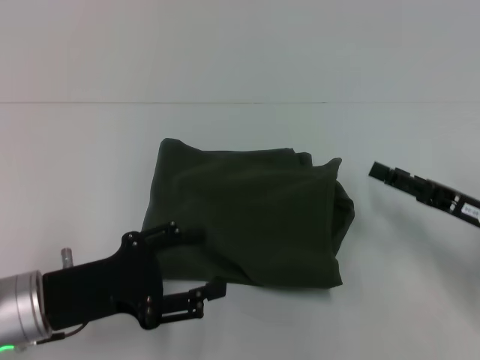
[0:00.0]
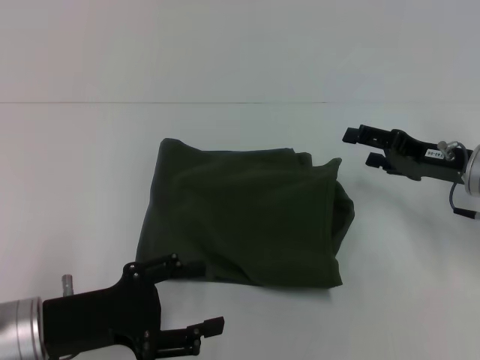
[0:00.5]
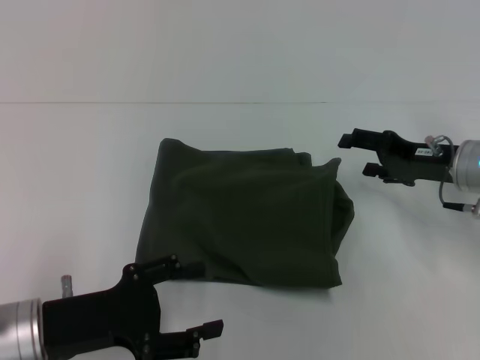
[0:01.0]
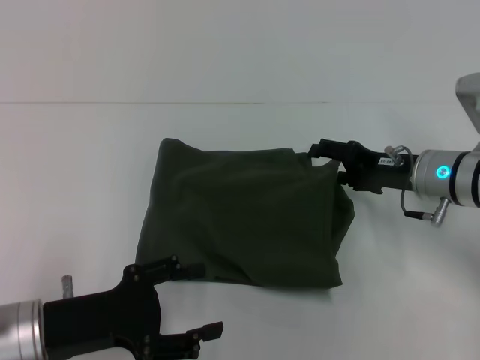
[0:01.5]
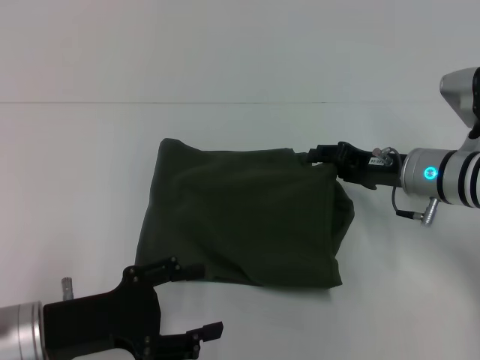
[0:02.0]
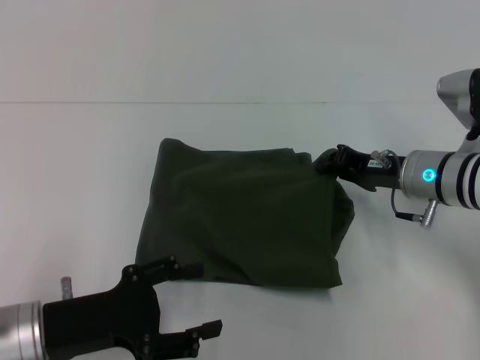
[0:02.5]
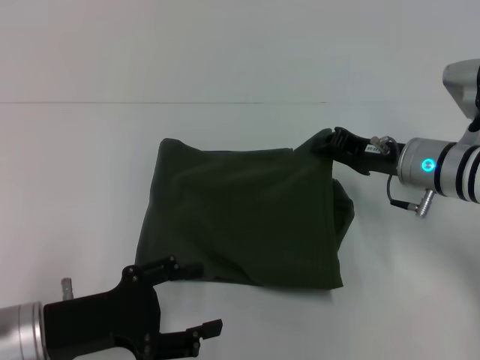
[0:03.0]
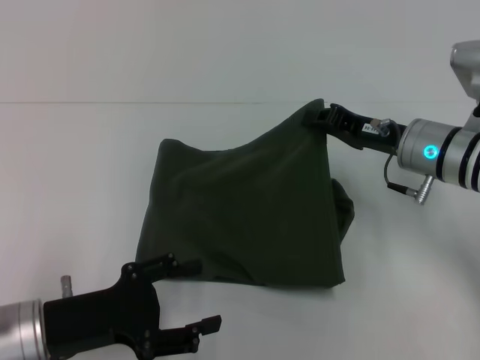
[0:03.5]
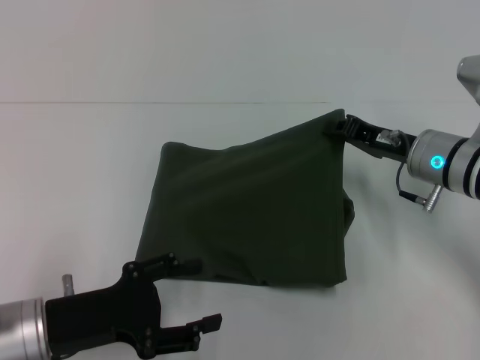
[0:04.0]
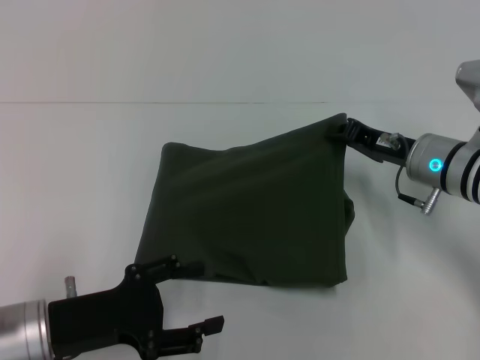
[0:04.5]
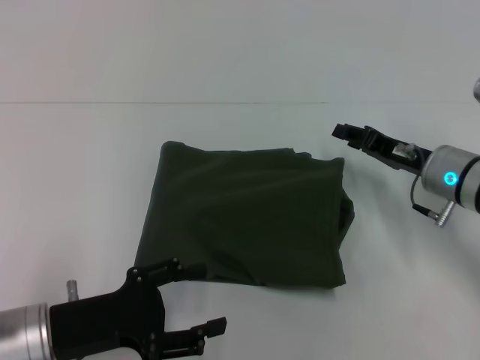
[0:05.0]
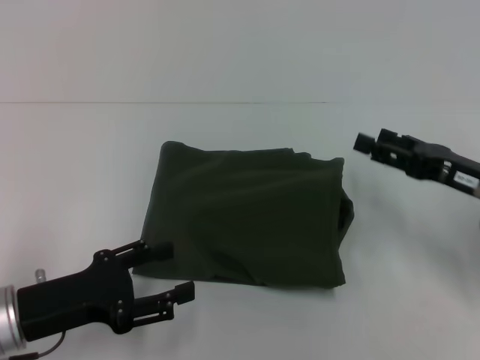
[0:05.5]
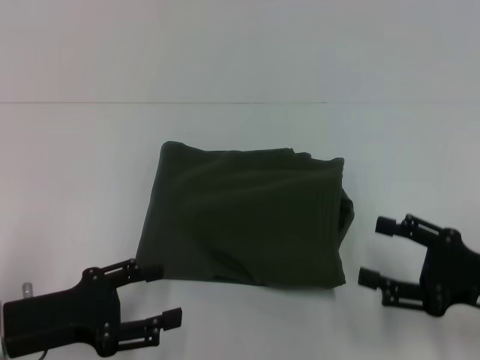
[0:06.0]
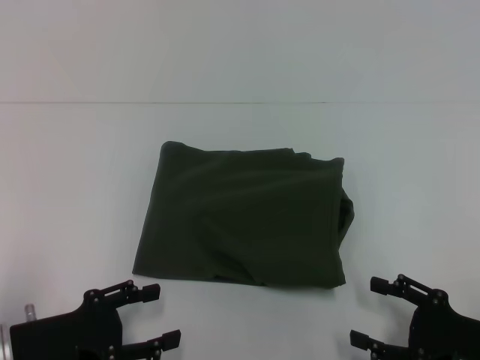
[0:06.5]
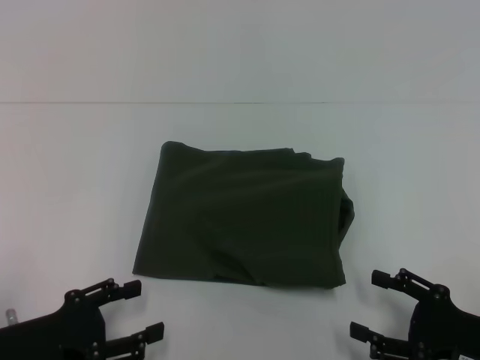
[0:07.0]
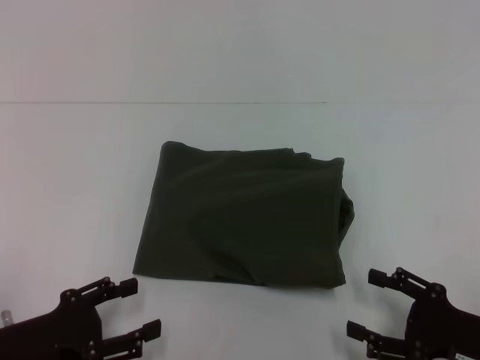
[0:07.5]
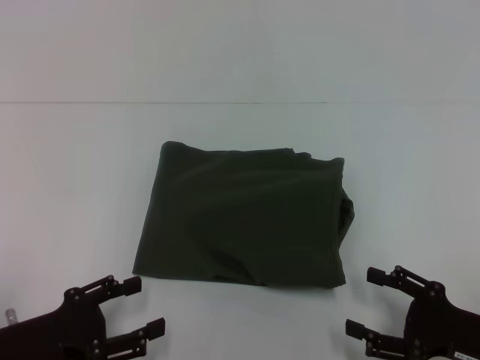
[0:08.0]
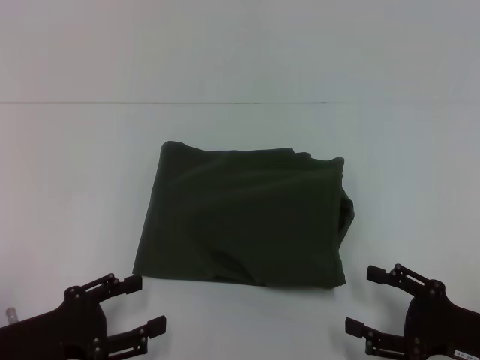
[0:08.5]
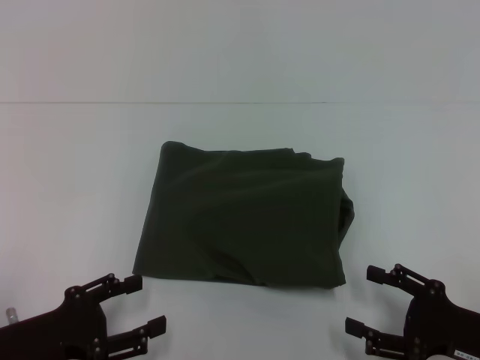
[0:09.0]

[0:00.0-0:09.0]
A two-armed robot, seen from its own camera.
0.0 to 2.0 s: The right gripper shifts some 10 cm forward and to the left.
2.0 to 4.5 s: The right gripper closes its fingers.
4.5 to 7.0 s: The right gripper is displaced backward by some 20 cm, and opens, while the left gripper changes place by roughly 5 cm.
7.0 to 9.0 s: Both grippers stay about where they are.

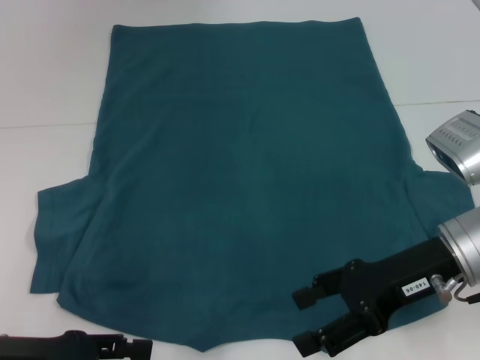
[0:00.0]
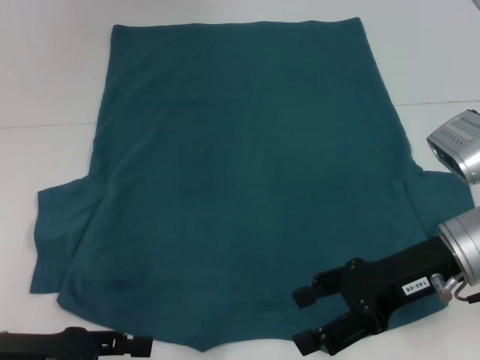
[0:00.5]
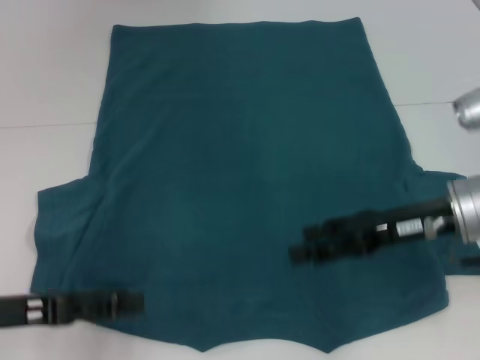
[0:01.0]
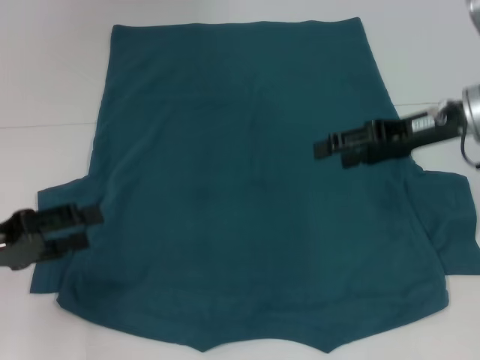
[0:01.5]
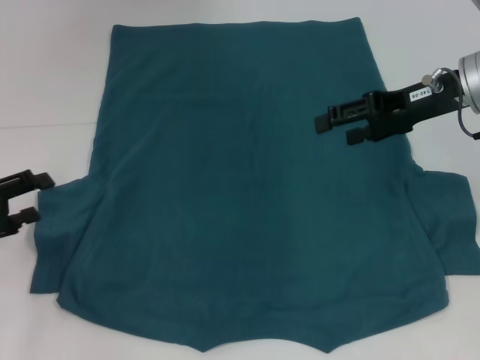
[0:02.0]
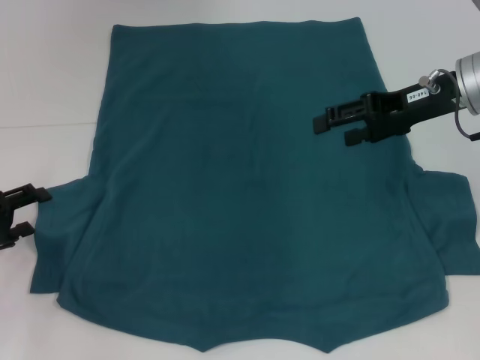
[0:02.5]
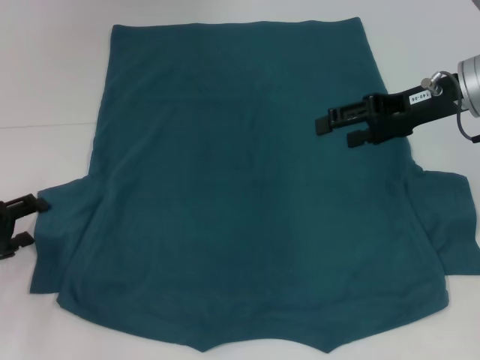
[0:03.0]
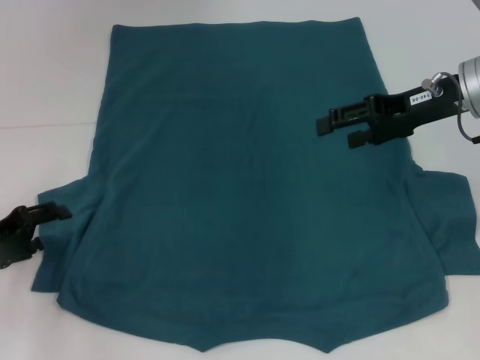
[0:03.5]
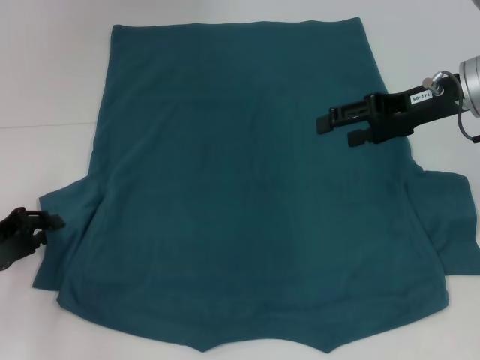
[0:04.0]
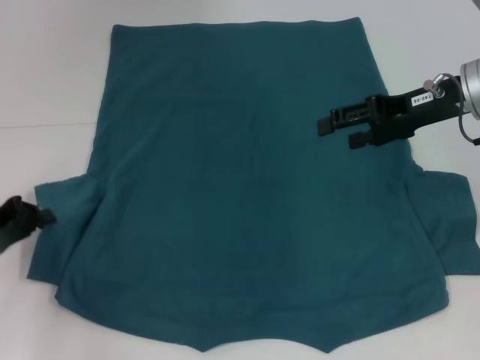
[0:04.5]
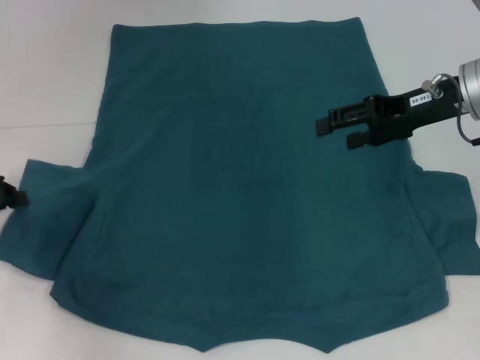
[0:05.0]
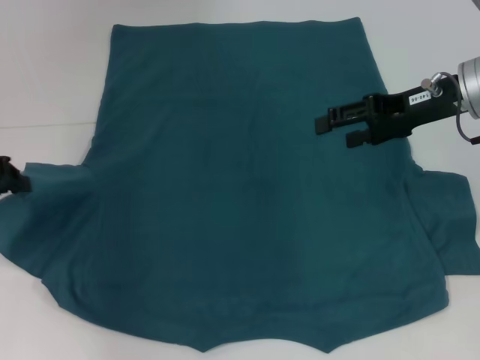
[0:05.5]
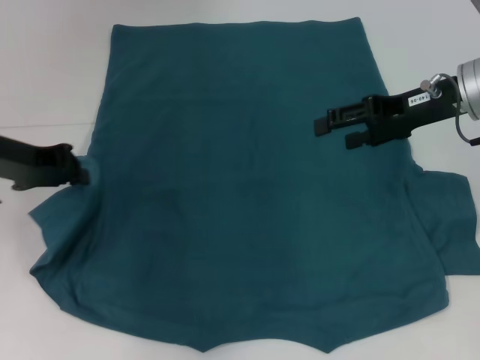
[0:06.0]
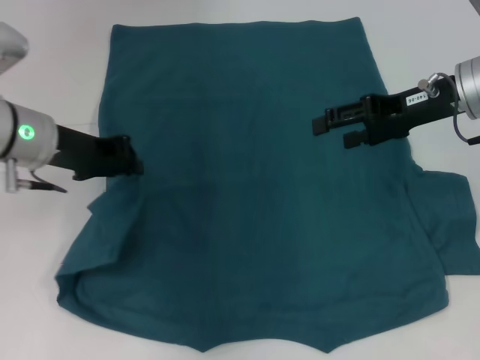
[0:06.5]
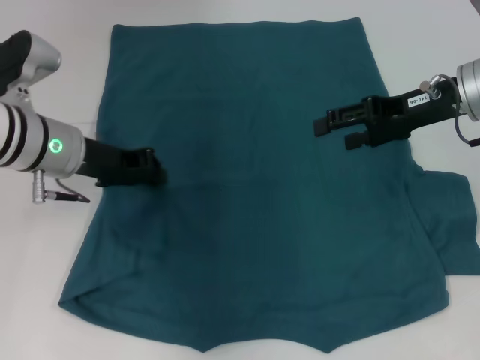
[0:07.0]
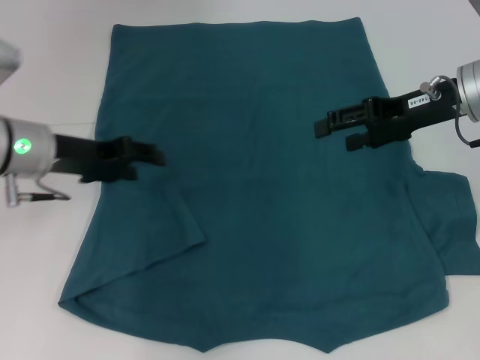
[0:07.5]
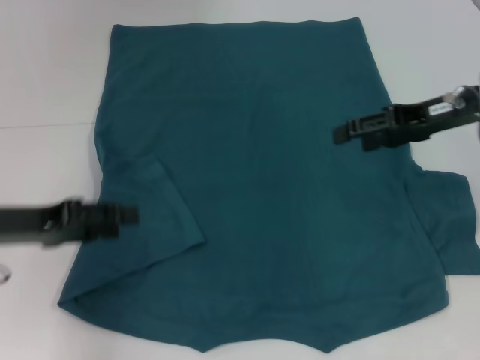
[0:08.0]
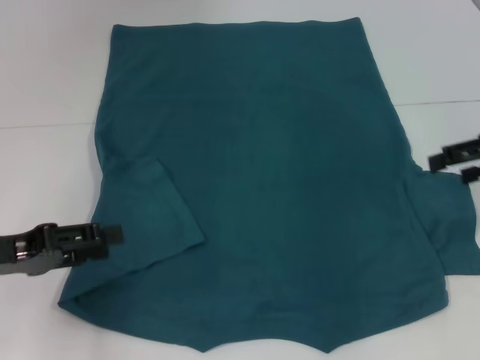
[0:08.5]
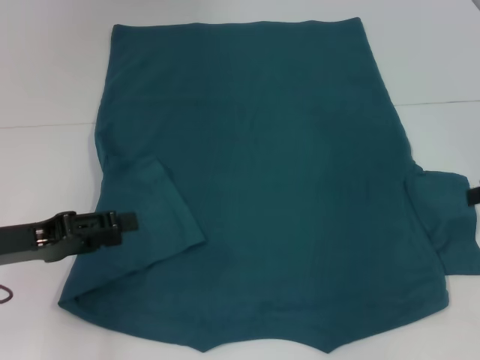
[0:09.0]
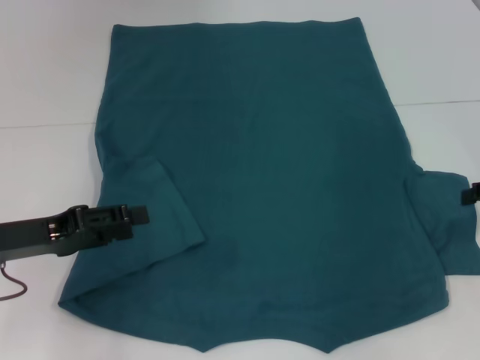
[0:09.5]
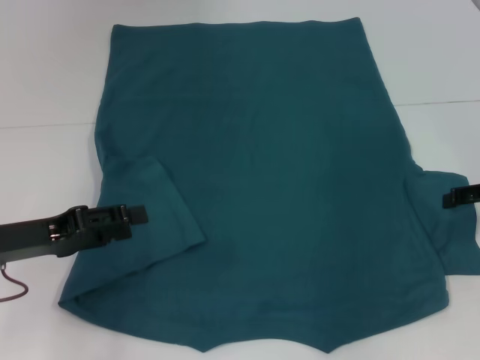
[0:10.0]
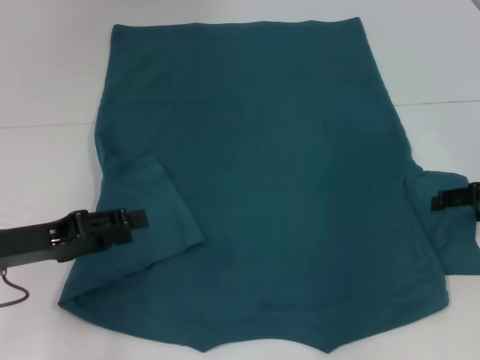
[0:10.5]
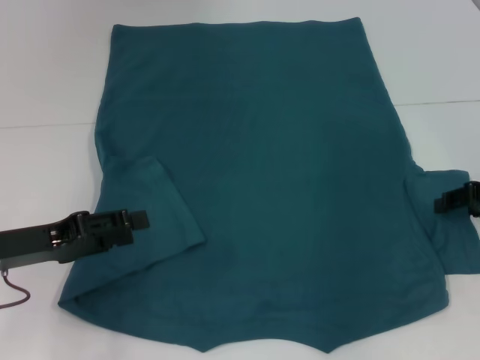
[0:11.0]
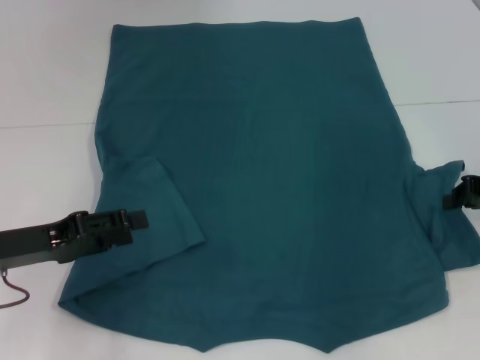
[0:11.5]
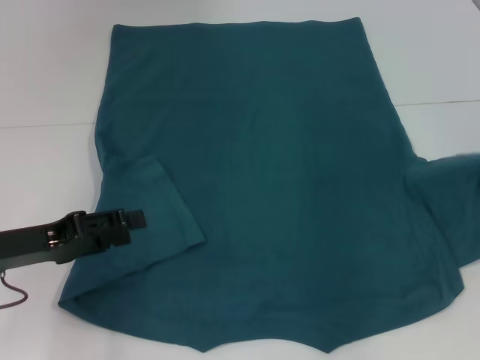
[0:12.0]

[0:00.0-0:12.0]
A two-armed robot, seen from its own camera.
Step, 0.0 to 7.0 s: Fold the bottom left sleeve with your left hand.
0.0 to 2.0 s: The left gripper shifts some 10 cm forward and to the left; the right gripper shifts roughly 15 cm forward and upward.
2.0 to 4.0 s: The grippers move only a little.
4.0 to 6.0 s: The left gripper goes some 15 cm upward, forward and to the right, and closes its fingers.
6.0 to 8.0 s: The left gripper shifts about 5 cm backward, and opens its fingers.
8.0 to 10.0 s: The right gripper travels to the right and downward by approximately 10 cm.
10.0 to 12.0 s: The right gripper closes.

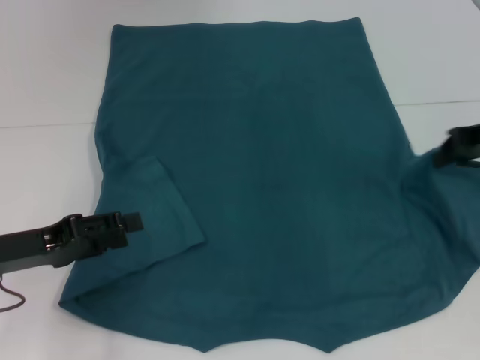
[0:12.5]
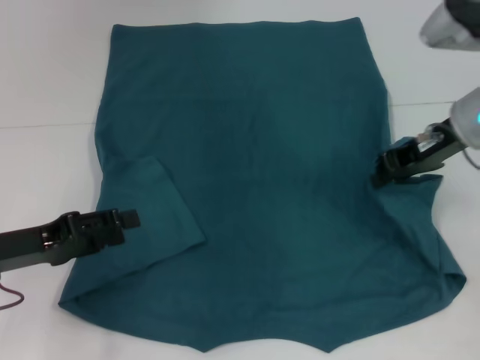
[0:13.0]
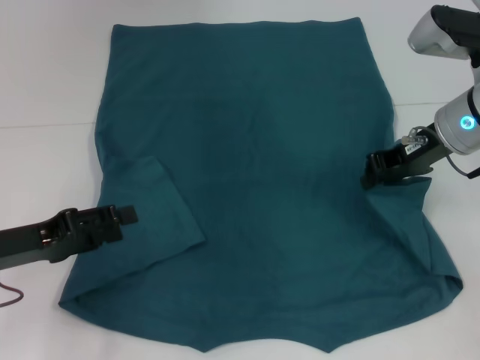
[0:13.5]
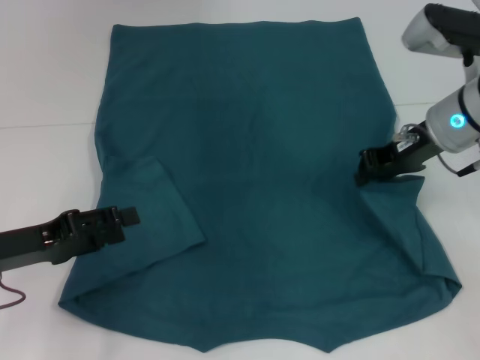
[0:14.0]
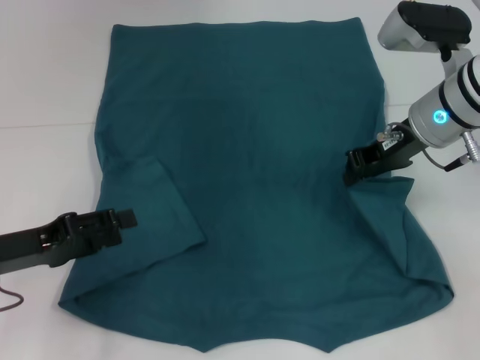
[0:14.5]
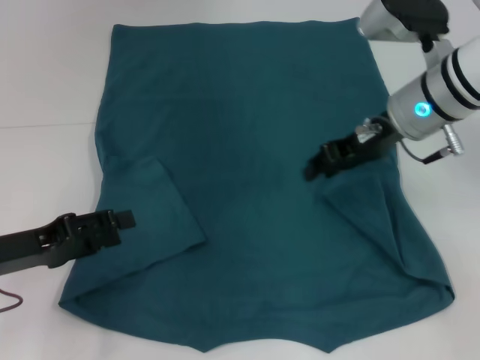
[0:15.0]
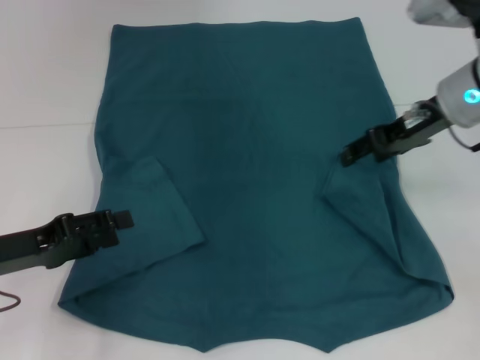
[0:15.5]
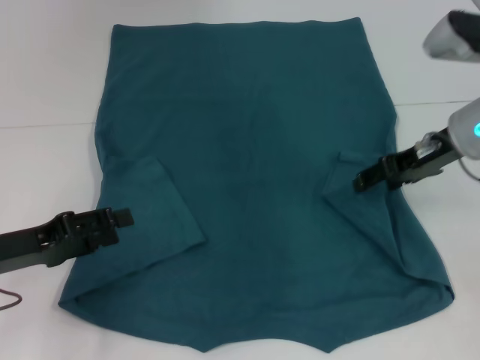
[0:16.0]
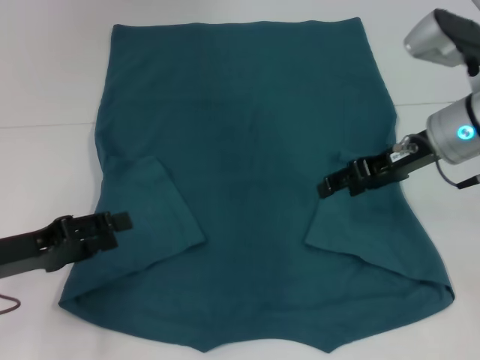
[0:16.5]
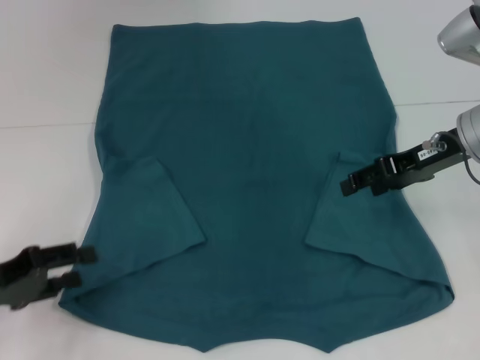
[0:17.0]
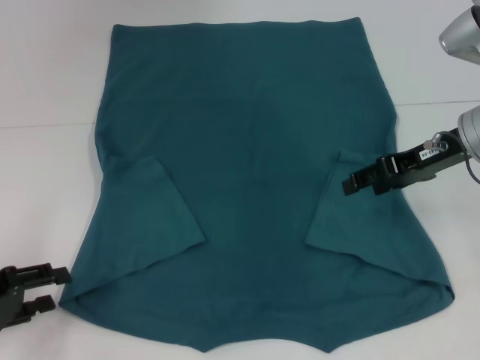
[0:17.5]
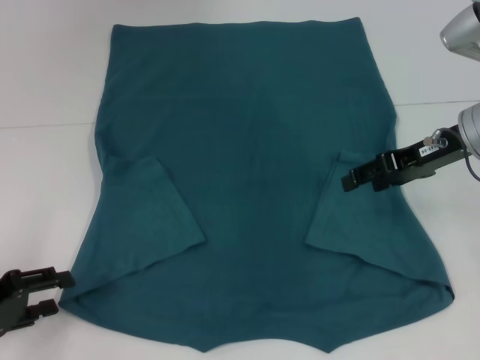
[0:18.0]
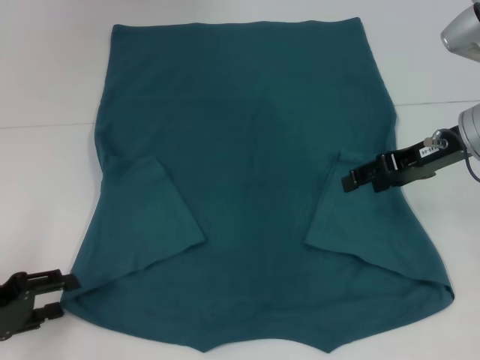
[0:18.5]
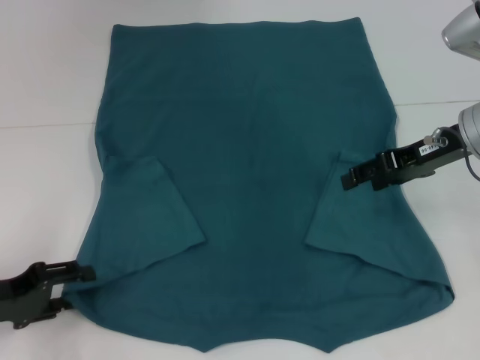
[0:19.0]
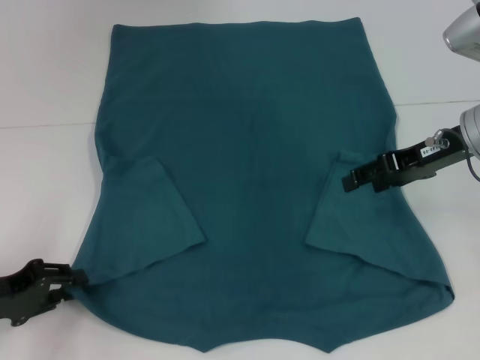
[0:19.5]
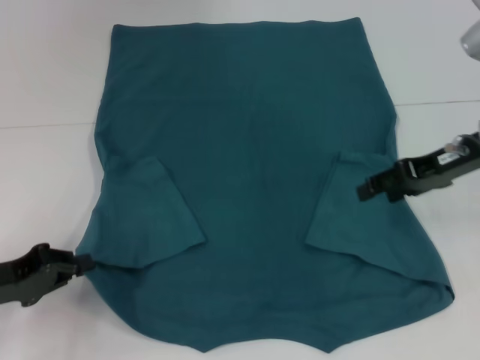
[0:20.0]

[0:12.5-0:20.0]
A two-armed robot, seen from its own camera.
Step, 12.5 to 16.5 s: Fold the bottom right sleeve to the right.
Step, 17.0 to 19.5 s: Grab the bottom left corner with your left hand.
12.5 to 14.5 s: The right gripper shifts approximately 10 cm to the left.
14.5 to 16.5 s: The right gripper opens up.
16.5 to 18.0 s: The left gripper changes place by approximately 5 cm.
18.0 to 20.0 s: The left gripper closes.
